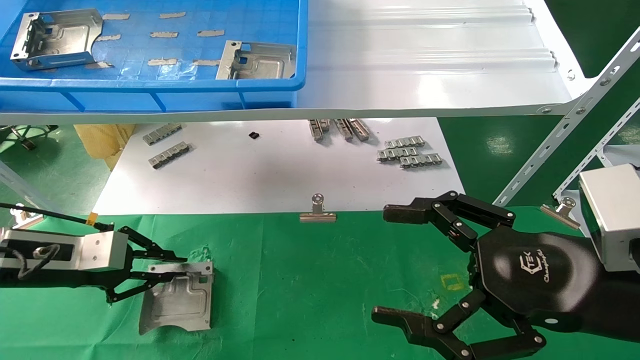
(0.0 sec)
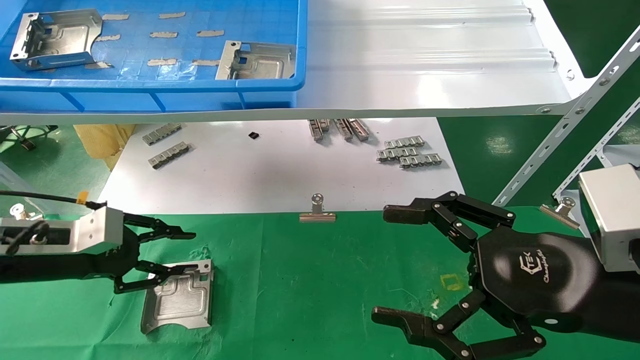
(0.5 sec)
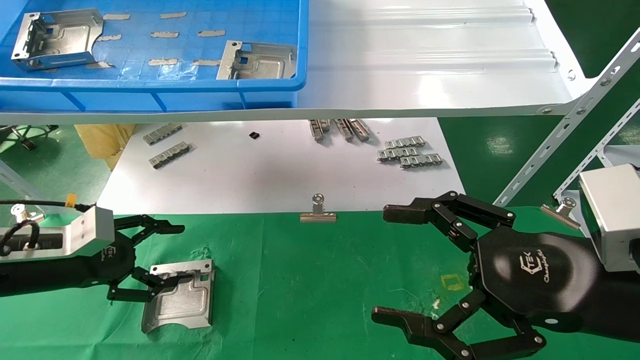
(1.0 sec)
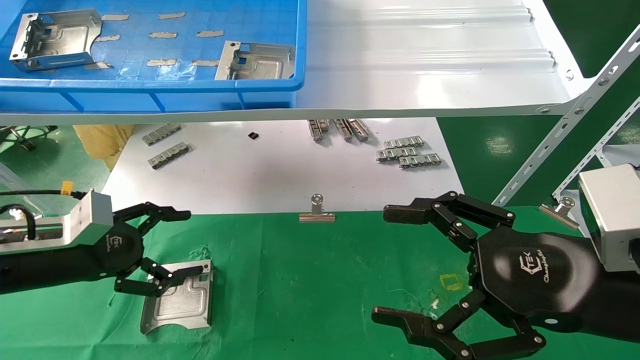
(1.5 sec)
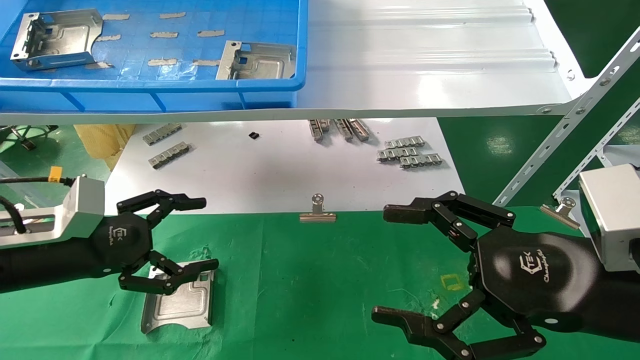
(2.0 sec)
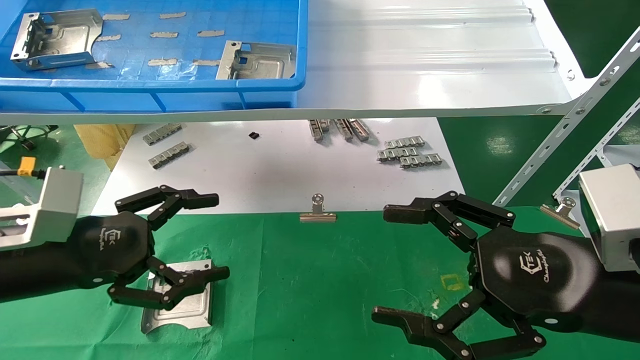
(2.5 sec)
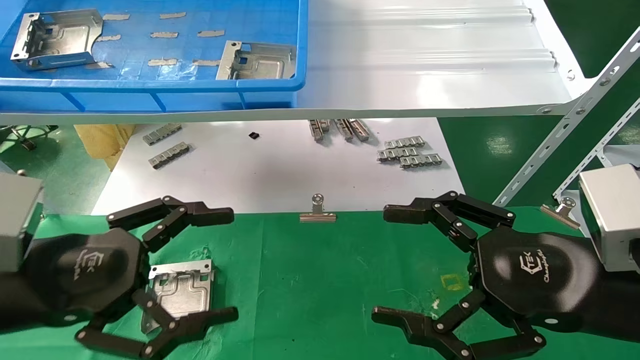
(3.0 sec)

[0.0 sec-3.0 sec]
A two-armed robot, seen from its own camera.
Task of the whole recording: use the mechanical arm to pick up the parts and place them on the table.
0.0 sec to 1.5 sec: The left gripper opens up.
1.5 sec to 3.0 sec: The left gripper goes approximately 15 cm backward and to the right.
